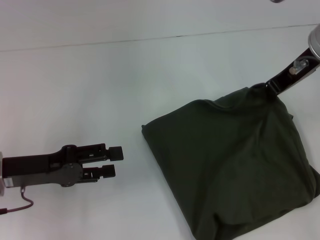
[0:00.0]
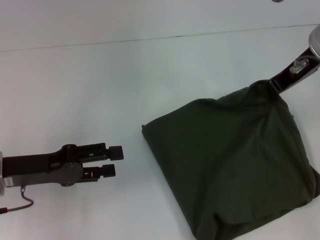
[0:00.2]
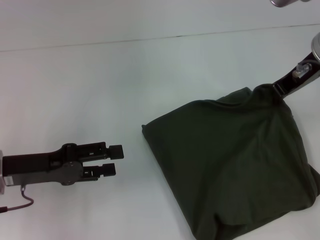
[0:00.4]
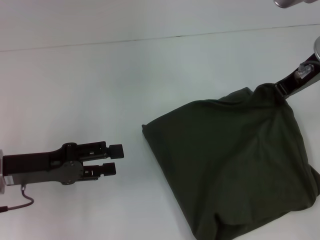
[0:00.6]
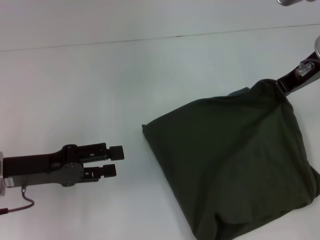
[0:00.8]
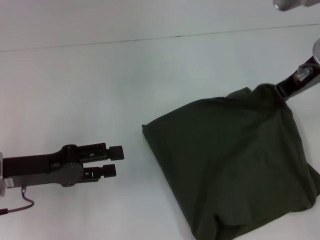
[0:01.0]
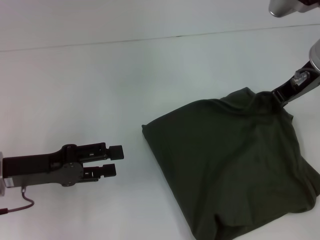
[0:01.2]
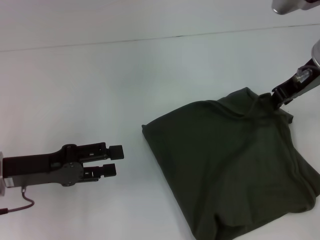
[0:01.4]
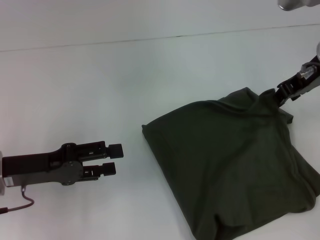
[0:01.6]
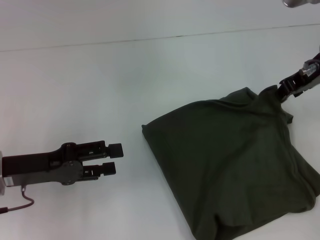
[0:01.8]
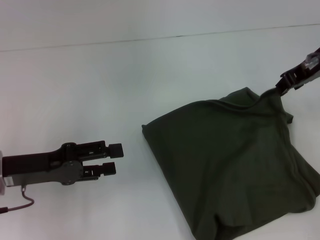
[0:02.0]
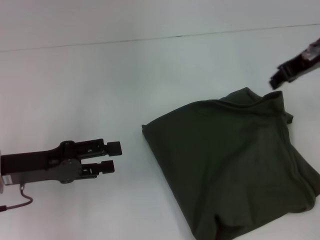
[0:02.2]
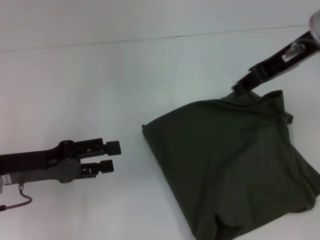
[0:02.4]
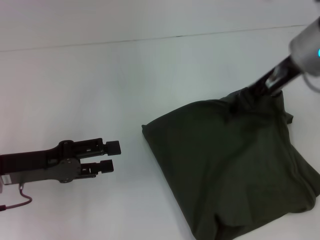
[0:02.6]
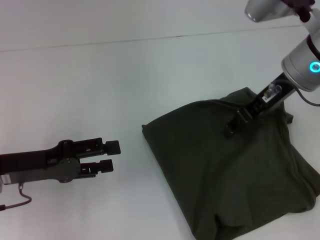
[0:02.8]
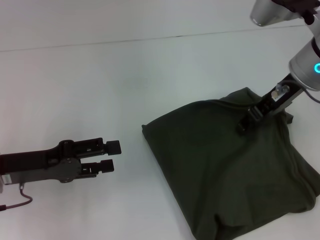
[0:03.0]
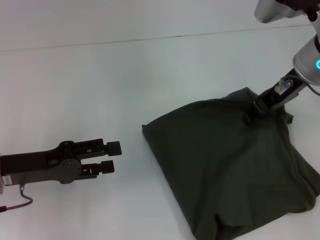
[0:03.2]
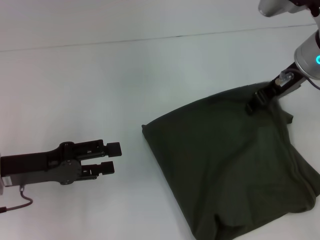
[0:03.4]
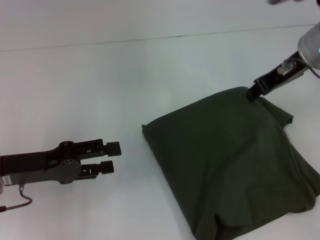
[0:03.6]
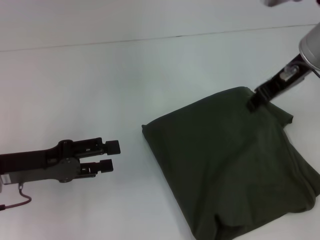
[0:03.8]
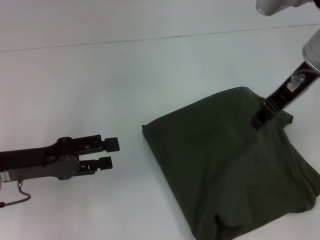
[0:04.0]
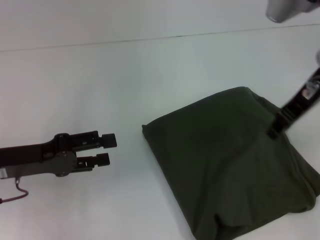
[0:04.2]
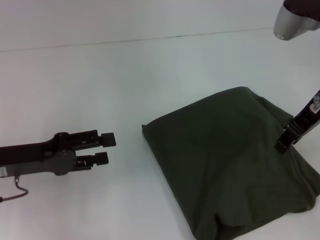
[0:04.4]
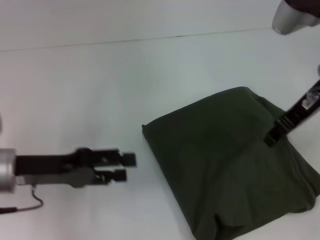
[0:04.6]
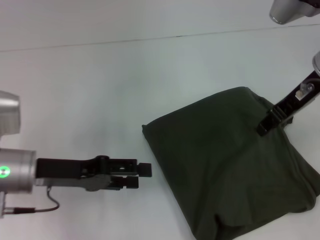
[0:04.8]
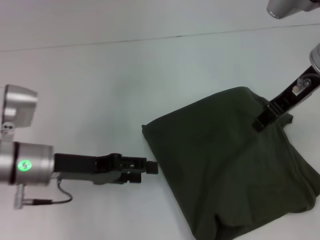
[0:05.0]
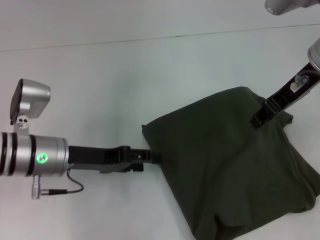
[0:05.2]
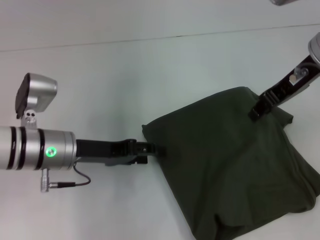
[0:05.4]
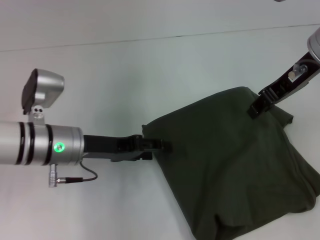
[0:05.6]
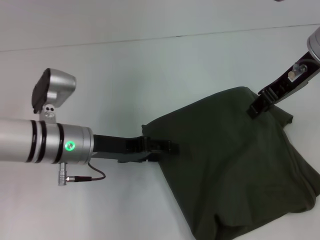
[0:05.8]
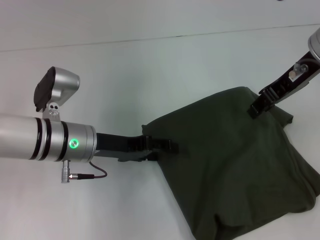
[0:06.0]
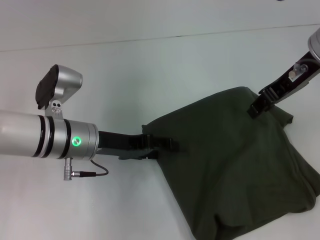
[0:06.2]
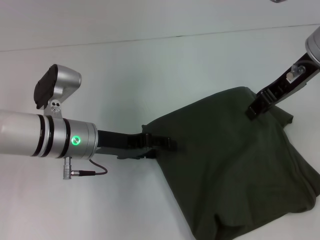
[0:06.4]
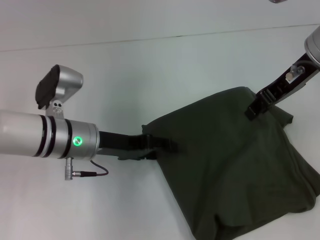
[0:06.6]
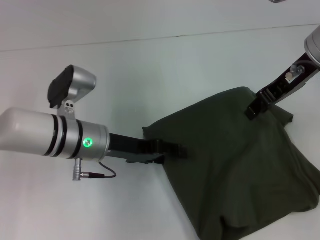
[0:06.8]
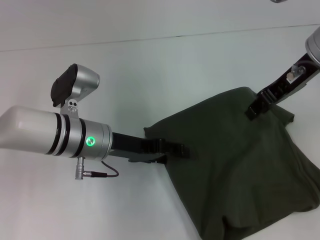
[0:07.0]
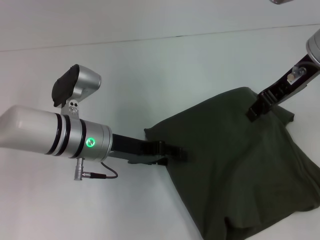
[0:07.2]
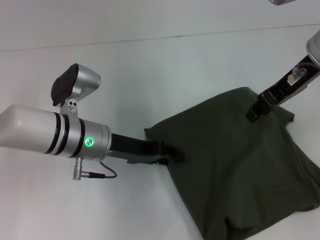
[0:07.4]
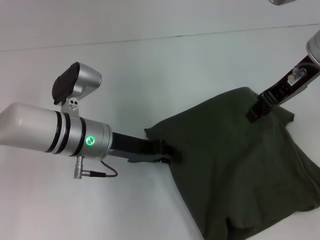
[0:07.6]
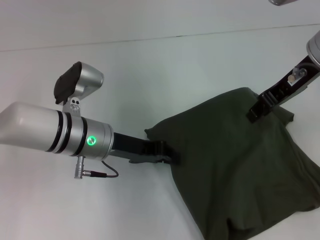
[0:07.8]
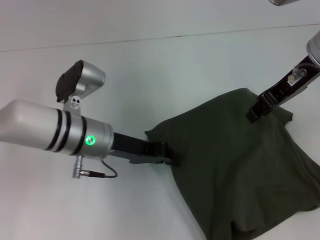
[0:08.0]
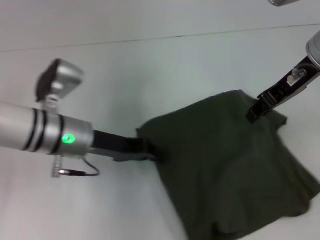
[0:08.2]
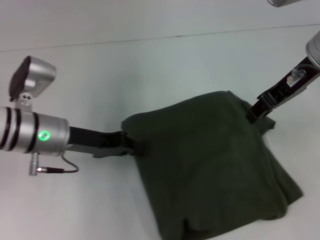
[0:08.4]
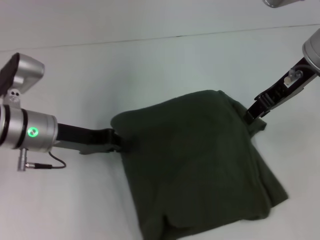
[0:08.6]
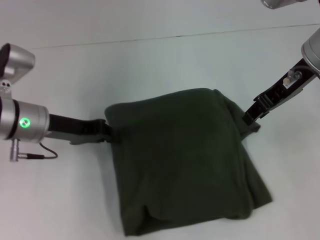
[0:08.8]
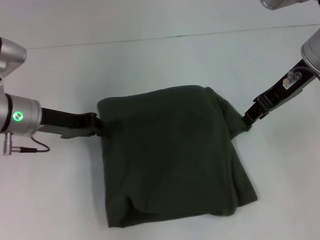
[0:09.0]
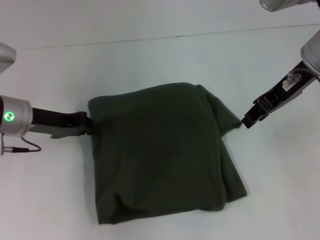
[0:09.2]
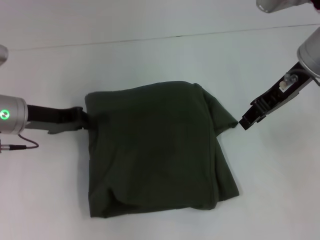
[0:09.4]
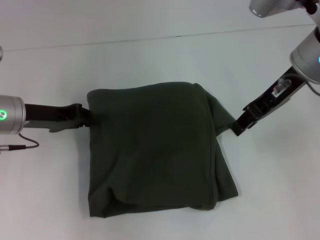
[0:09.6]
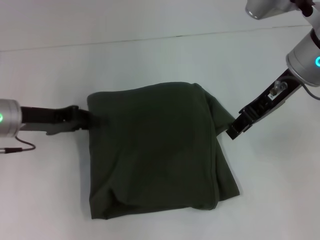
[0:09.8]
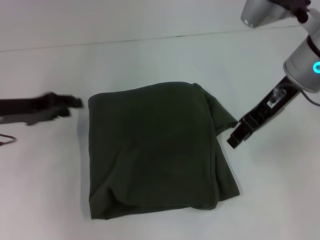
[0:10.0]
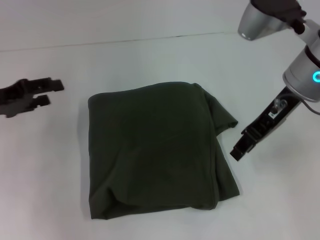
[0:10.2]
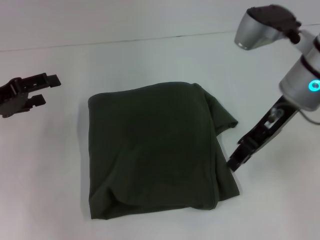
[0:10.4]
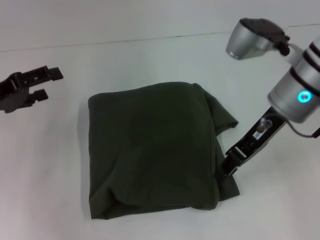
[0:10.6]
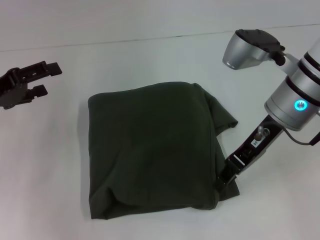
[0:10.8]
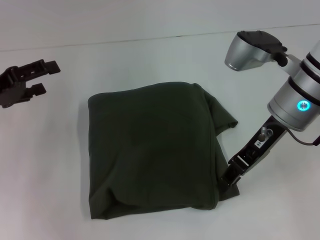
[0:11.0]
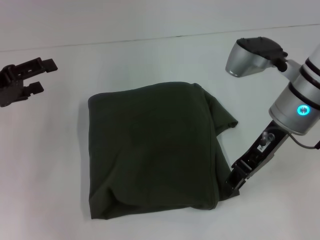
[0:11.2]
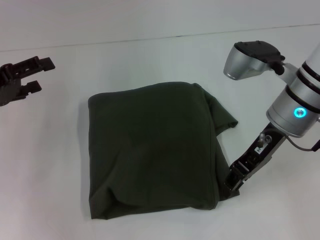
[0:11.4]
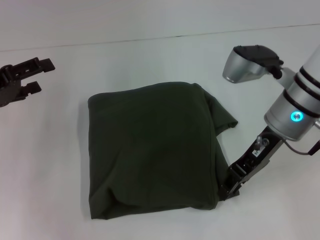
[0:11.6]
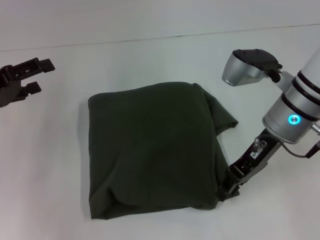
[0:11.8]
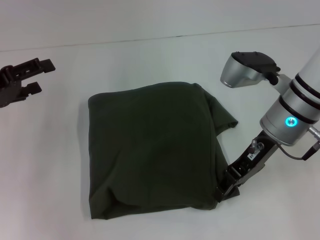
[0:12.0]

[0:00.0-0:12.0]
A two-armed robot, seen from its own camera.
0.0 to 1.6 s: The grippers stay close to where they were, moving slightly.
3.0 to 4.4 s: The grippers stay close to where they were, moving slightly.
4.4 to 6.0 s: The left gripper travels to the right by about 10 cm.
6.0 to 7.6 s: The grippers stay close to where they were, moving slightly.
7.6 to 9.0 s: The left gripper heads to the left, covering approximately 10 cm, and closes.
9.0 to 10.4 s: The left gripper moves to the left, roughly 10 cm, and opens its fingers.
10.4 to 12.0 s: The right gripper is displaced downward by some 5 cm.

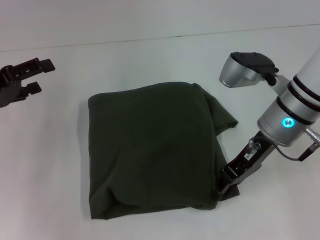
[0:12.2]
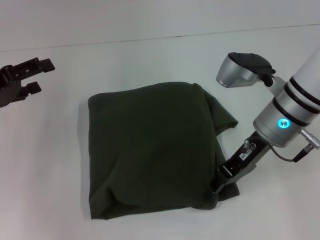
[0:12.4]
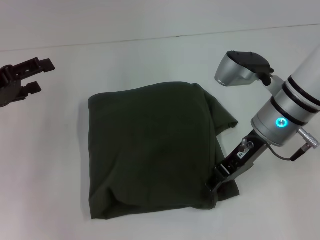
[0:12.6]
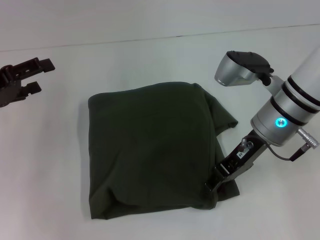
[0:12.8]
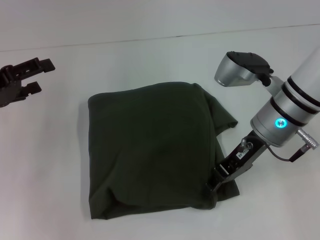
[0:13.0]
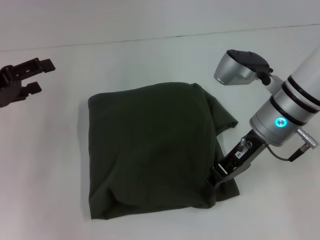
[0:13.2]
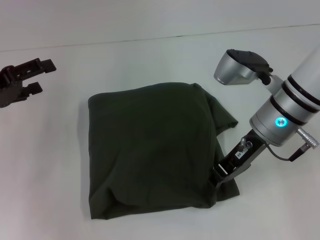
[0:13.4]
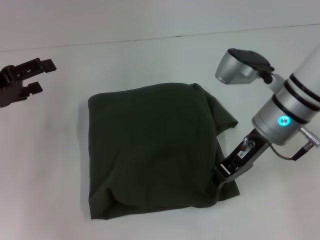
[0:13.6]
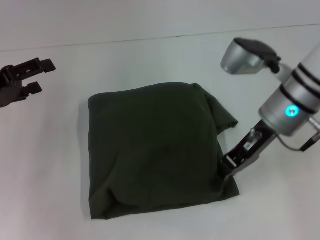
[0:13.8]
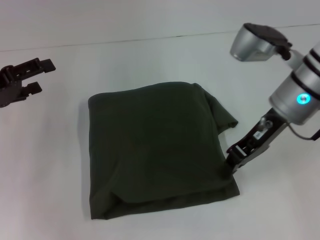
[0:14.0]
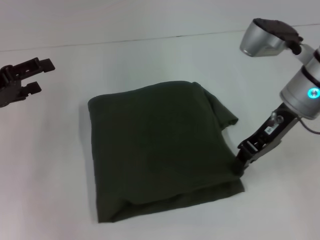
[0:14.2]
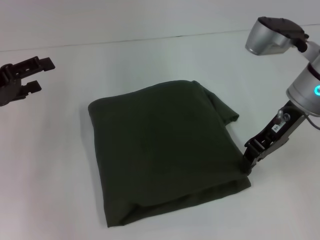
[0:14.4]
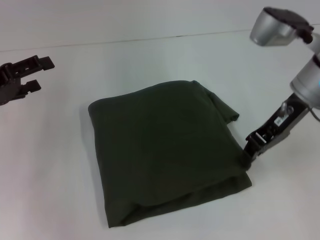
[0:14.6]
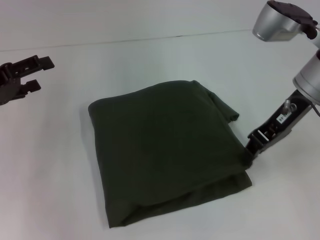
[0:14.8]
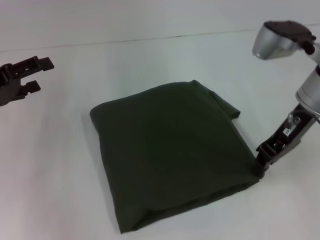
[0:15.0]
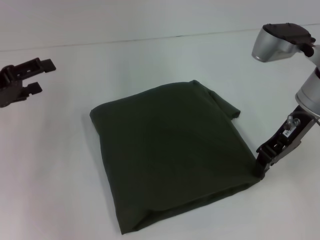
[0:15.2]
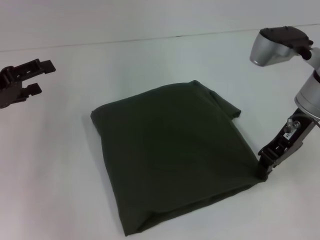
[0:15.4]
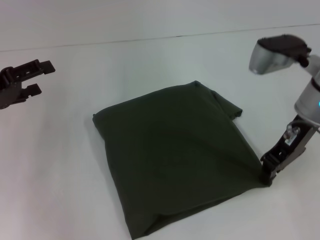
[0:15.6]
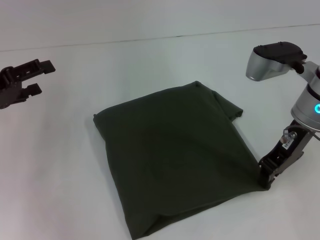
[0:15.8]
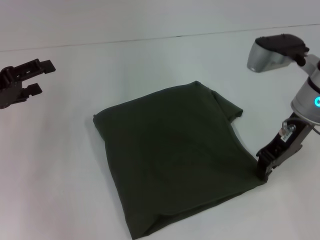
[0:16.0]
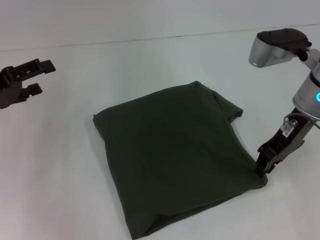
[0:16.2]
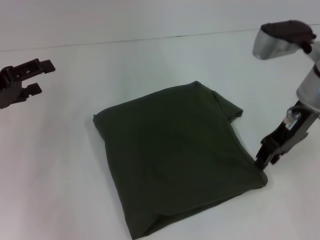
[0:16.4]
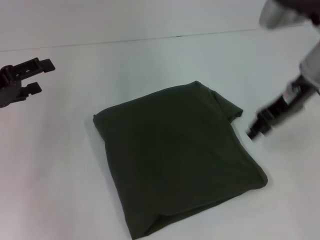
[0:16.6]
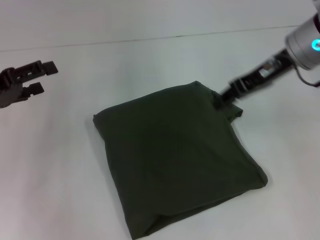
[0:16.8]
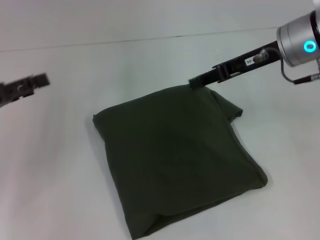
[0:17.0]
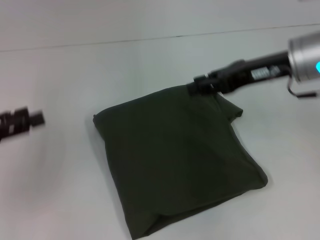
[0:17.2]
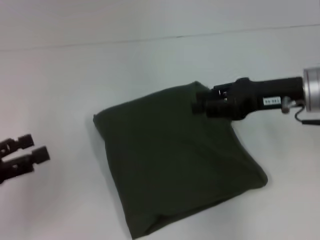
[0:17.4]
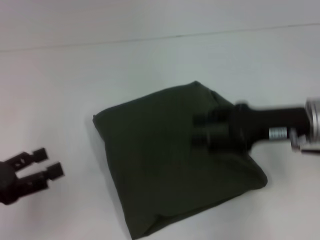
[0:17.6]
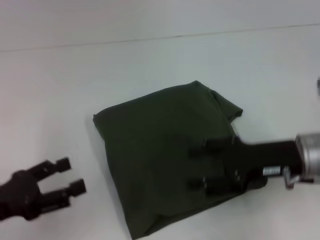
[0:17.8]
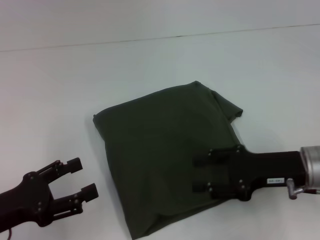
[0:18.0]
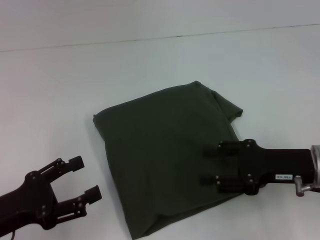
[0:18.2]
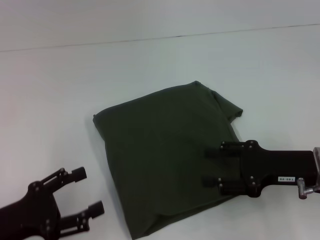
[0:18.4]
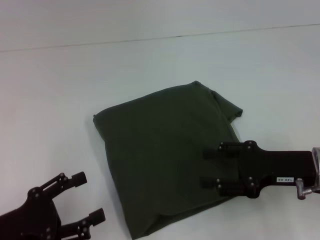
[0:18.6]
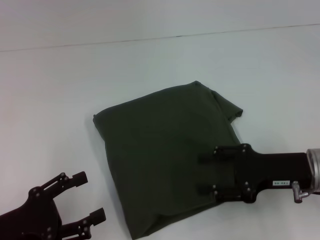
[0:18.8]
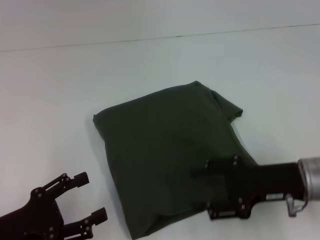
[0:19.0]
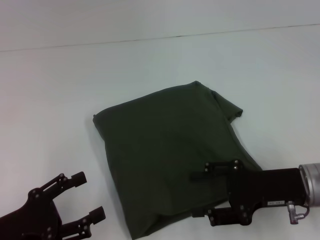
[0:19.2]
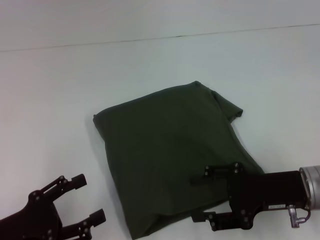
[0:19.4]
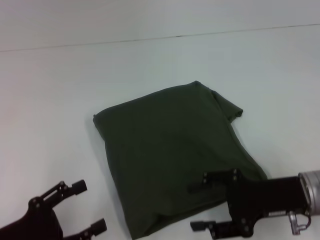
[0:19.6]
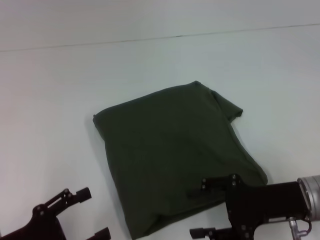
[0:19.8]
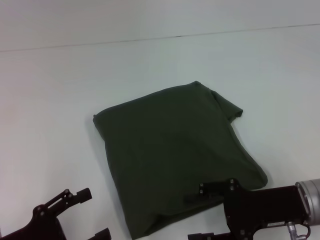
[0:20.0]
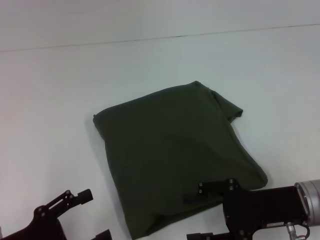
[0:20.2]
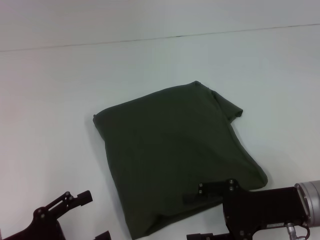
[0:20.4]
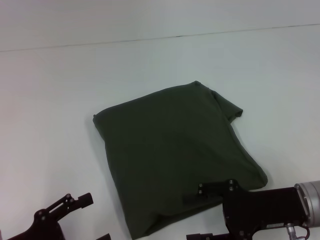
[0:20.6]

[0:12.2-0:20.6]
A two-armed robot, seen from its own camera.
12.2 to 13.6 s: The right gripper closes.
13.6 to 15.0 s: The right gripper shifts by some 5 cm.
15.0 to 16.4 s: The grippers make only small movements.
16.4 to 17.8 s: The two grippers go about 15 cm backward and downward. The right gripper opens up.
17.8 to 19.2 s: The left gripper shifts by roughly 5 cm.
19.2 to 20.6 s: The grippers make only small movements.

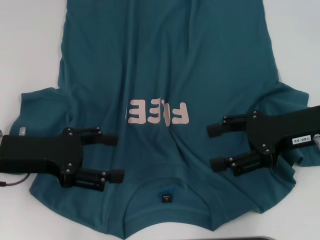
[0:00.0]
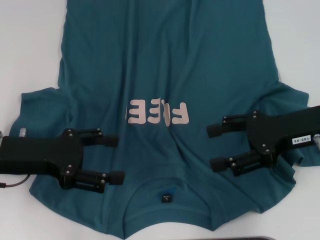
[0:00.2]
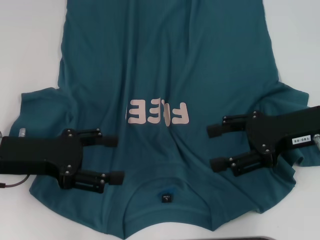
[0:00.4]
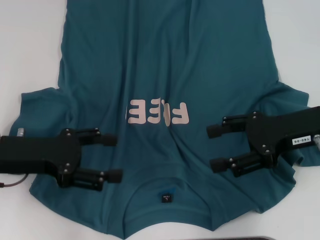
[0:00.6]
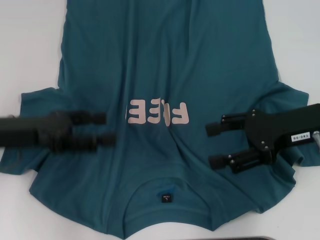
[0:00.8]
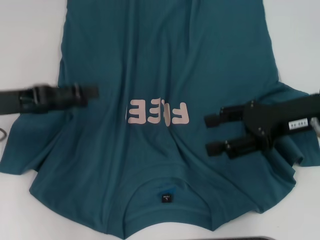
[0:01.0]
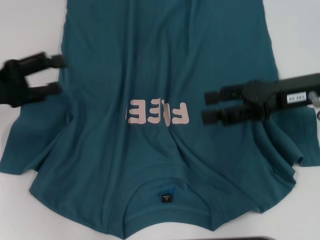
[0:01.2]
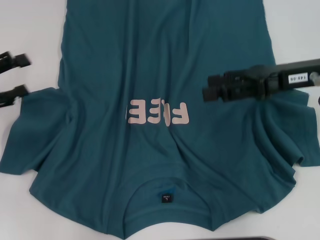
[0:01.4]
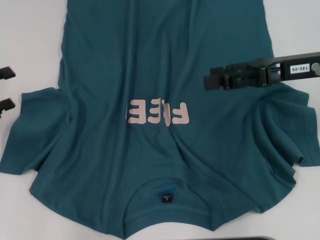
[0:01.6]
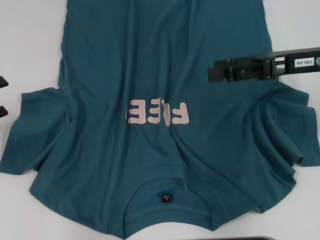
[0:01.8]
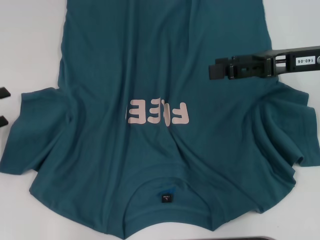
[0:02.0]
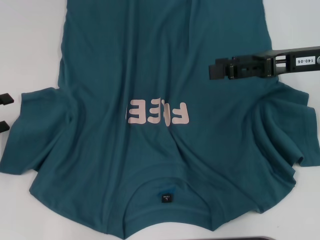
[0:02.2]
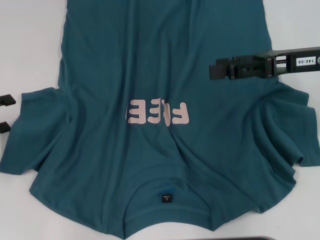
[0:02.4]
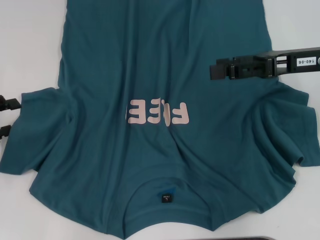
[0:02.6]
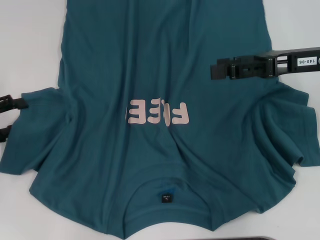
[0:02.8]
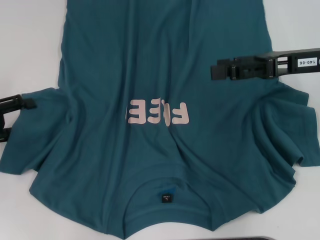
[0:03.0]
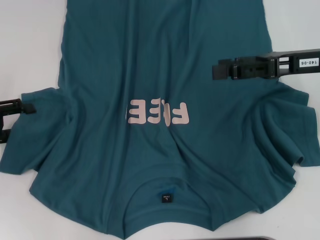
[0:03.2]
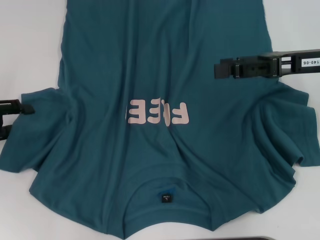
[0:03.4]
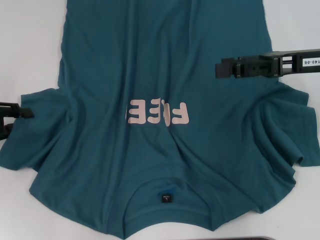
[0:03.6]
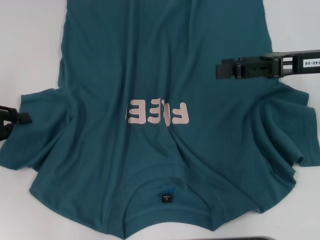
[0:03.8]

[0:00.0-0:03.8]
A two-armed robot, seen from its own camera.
0.0 to 1.2 s: The left gripper is displaced to the left by about 5 cm.
1.2 to 2.6 s: The left gripper moves to the left, about 5 cm.
2.6 to 3.8 s: The left gripper closes.
